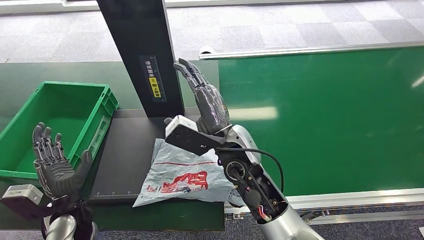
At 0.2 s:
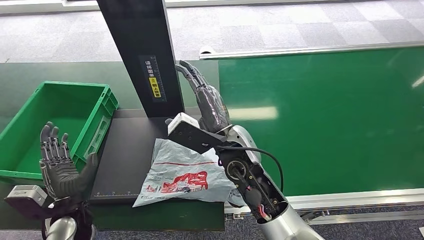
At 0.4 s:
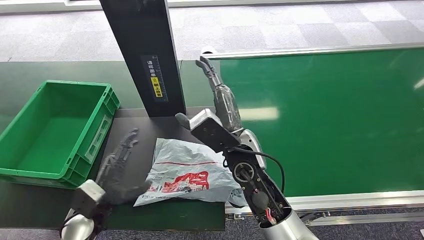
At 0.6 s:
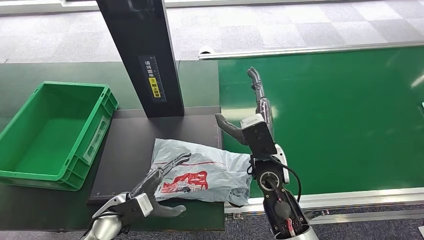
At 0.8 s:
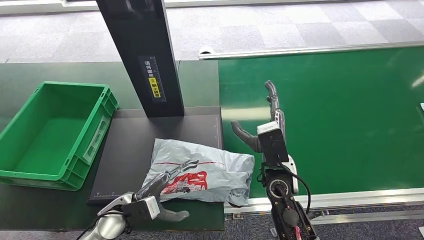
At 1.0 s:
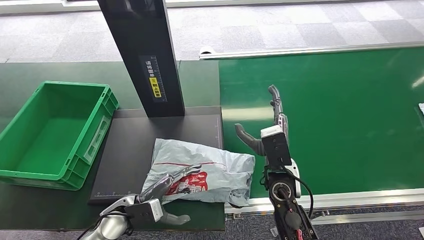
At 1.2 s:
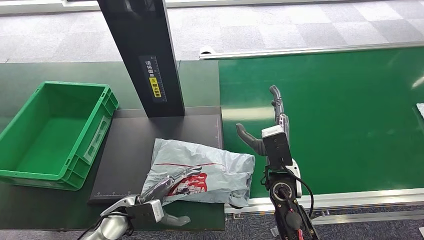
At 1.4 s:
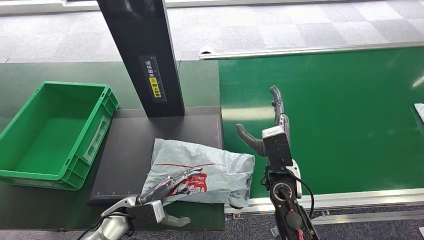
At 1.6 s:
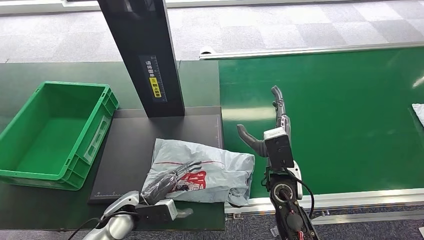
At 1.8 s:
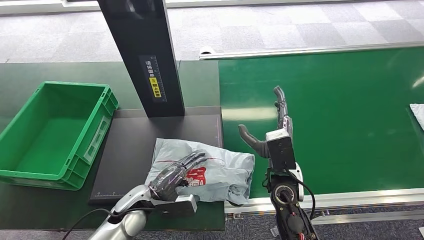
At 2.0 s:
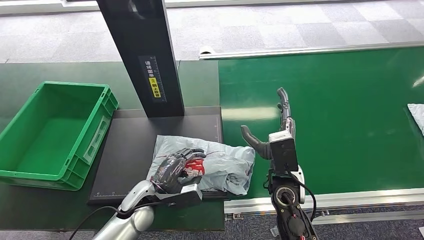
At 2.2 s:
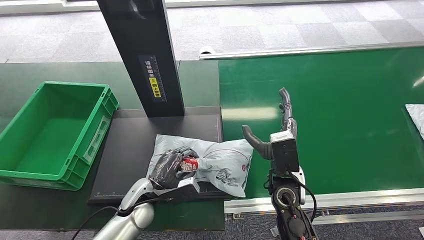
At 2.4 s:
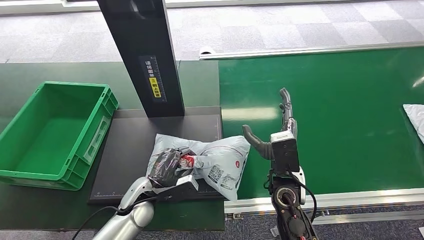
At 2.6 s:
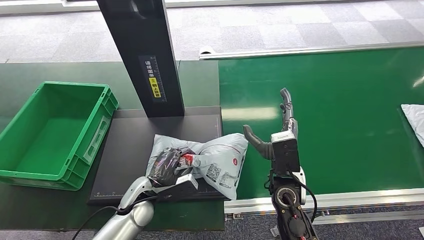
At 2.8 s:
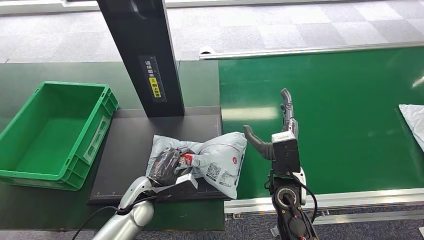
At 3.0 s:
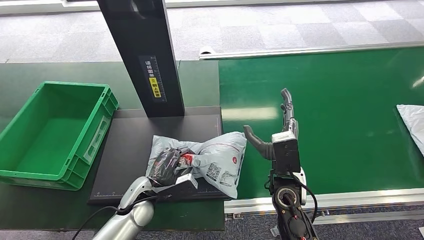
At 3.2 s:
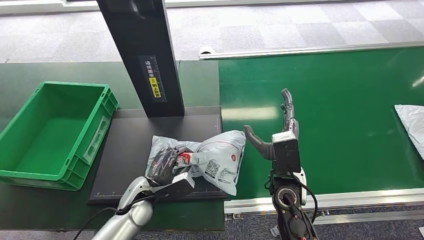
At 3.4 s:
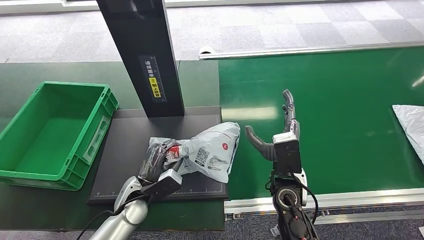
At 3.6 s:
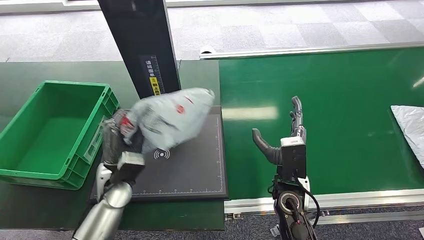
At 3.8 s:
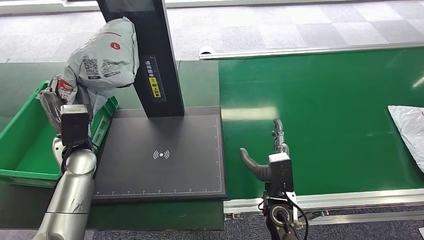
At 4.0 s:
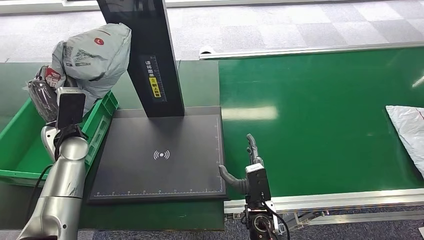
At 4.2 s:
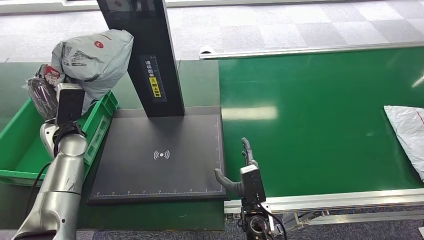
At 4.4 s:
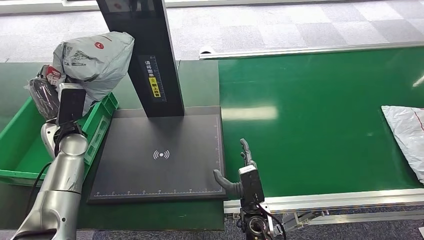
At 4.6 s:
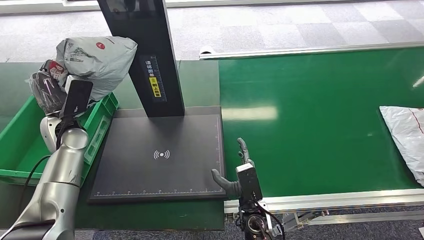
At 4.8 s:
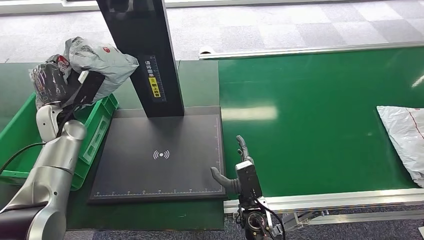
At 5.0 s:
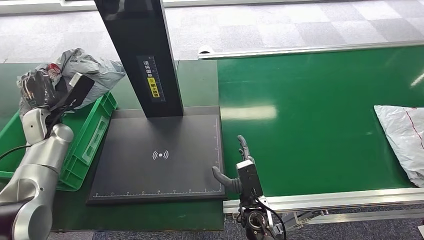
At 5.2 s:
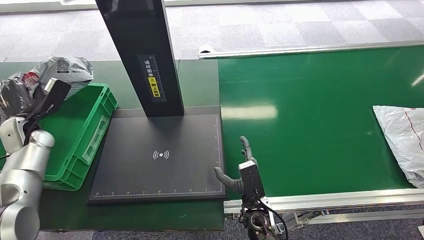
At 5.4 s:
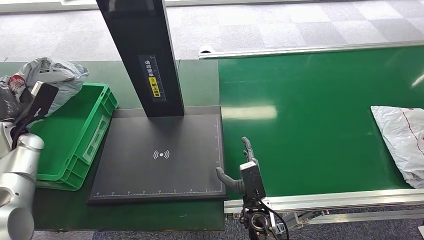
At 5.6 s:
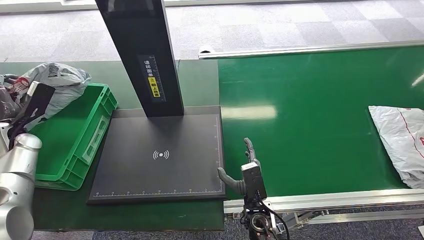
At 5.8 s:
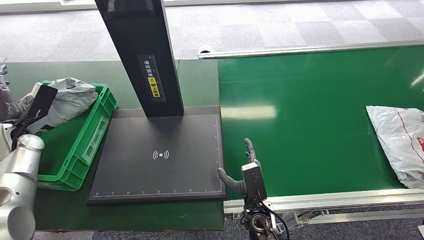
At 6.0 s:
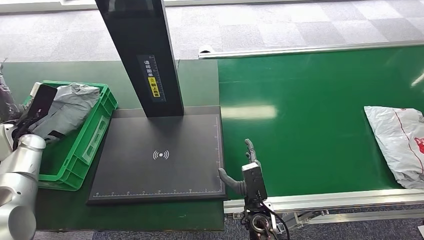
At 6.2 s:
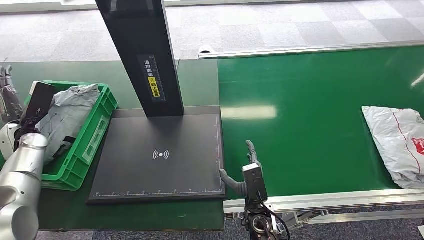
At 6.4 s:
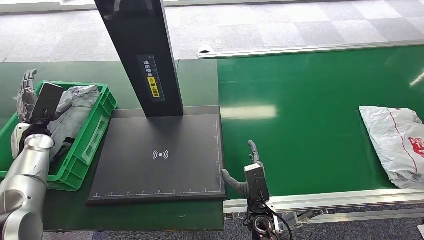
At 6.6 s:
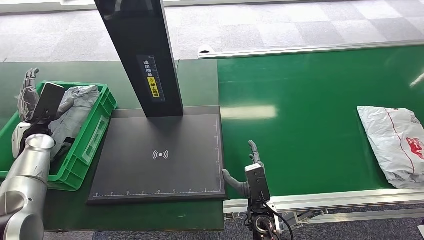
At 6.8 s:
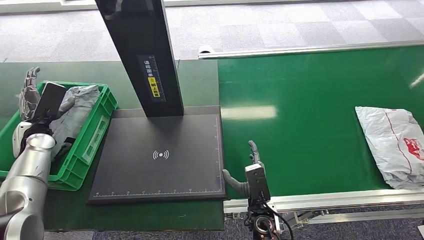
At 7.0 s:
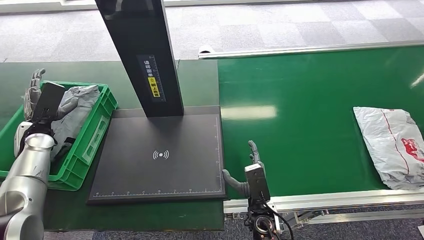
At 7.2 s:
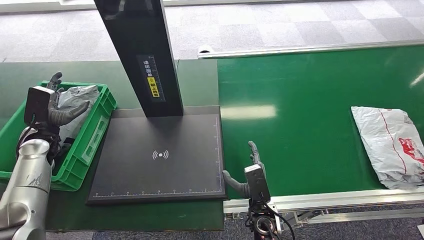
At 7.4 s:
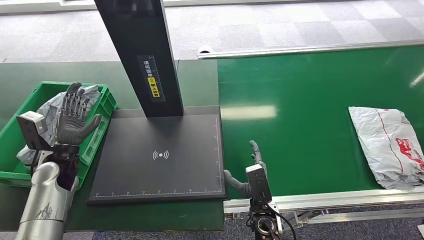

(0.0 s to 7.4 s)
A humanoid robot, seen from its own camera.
Task of the whole recording: Weigh the package on the weighing device and place it in the left basket.
Step, 0.6 s - 3.4 s: Pick up the package from the inbound machine.
Step, 3.8 s - 7.4 s: Place the package into the parcel locker.
0.0 s - 1.4 s: The left hand travels to the right by about 10 cm. The right hand heads to the right and downward, covering about 15 cm.
1.4 s - 3.0 s: The left hand ends up about 5 cm from where it was.
6.0 s - 7.4 s: The left hand goes approximately 10 cm to the right.
